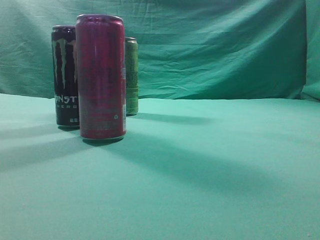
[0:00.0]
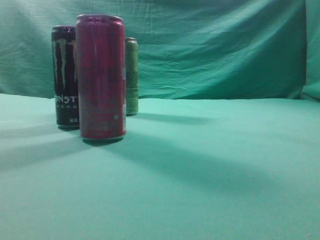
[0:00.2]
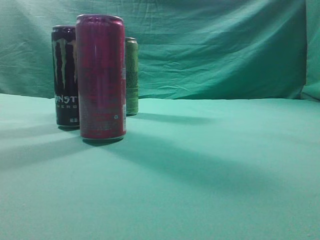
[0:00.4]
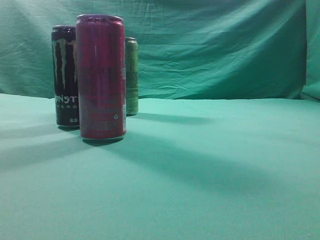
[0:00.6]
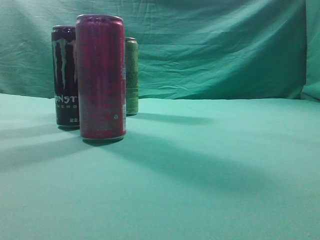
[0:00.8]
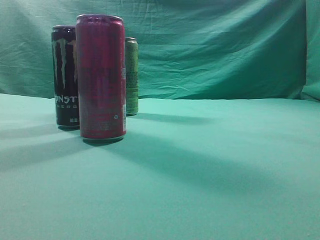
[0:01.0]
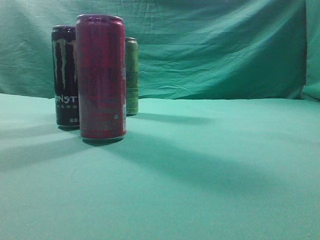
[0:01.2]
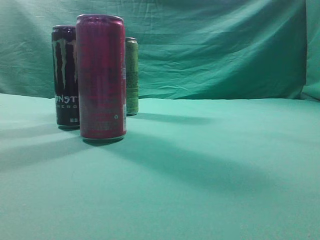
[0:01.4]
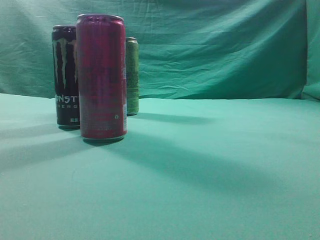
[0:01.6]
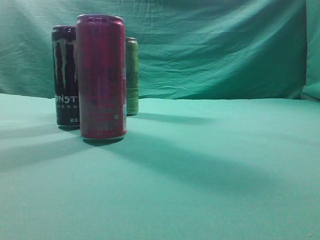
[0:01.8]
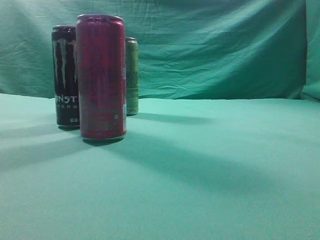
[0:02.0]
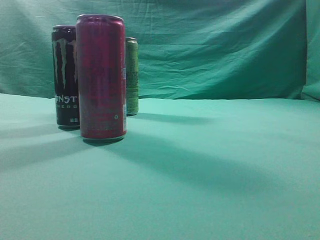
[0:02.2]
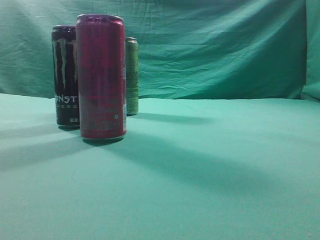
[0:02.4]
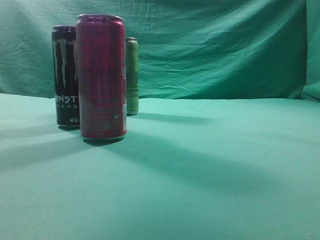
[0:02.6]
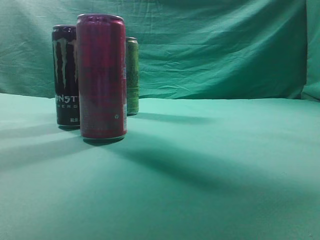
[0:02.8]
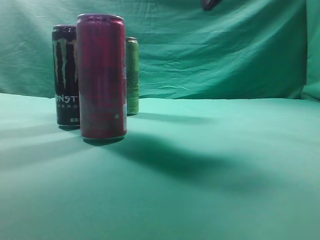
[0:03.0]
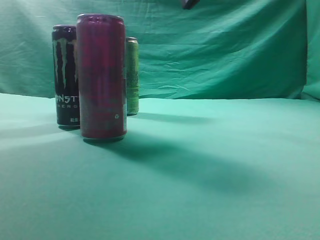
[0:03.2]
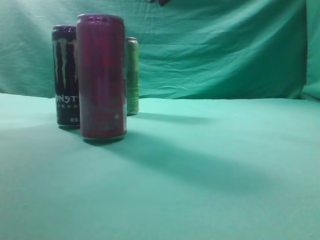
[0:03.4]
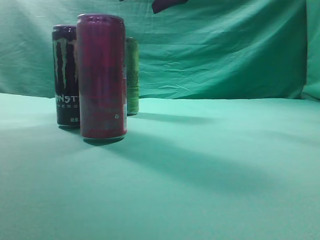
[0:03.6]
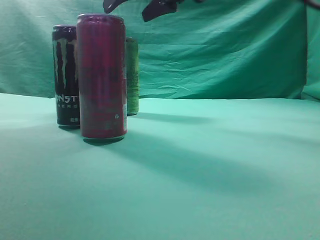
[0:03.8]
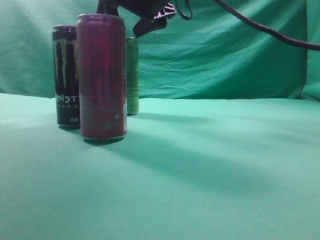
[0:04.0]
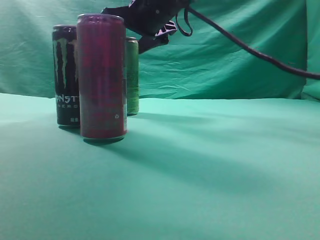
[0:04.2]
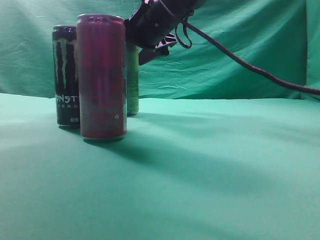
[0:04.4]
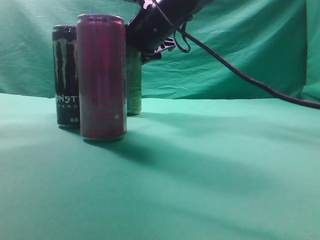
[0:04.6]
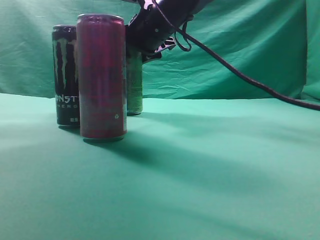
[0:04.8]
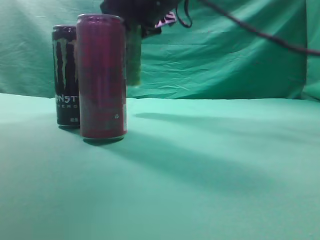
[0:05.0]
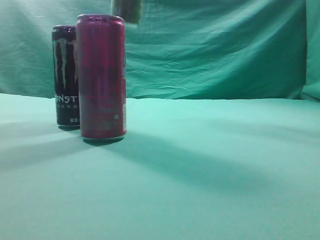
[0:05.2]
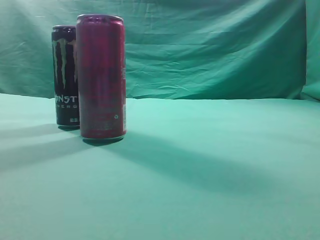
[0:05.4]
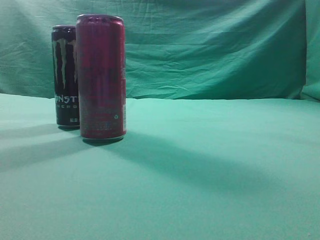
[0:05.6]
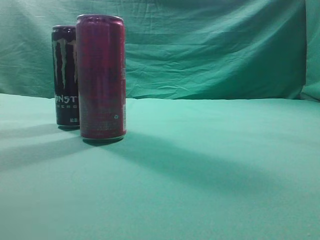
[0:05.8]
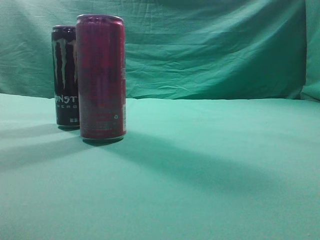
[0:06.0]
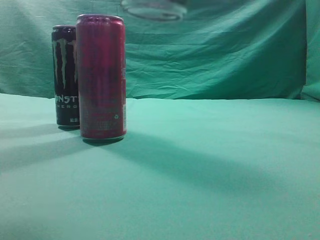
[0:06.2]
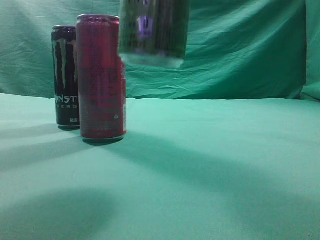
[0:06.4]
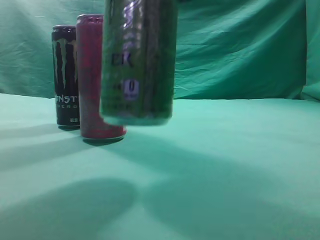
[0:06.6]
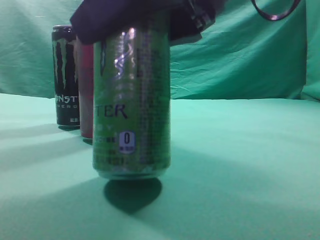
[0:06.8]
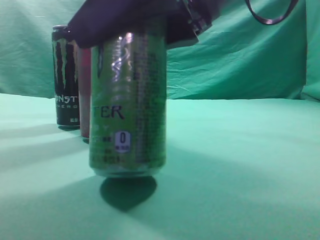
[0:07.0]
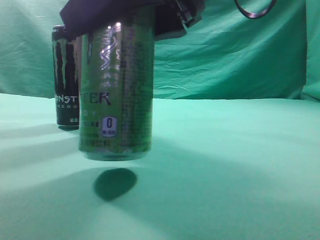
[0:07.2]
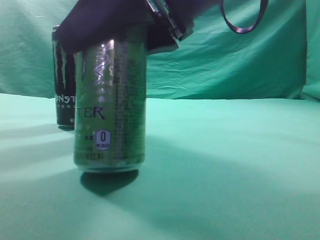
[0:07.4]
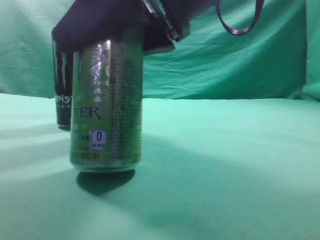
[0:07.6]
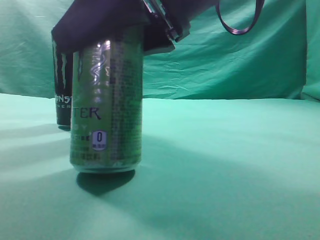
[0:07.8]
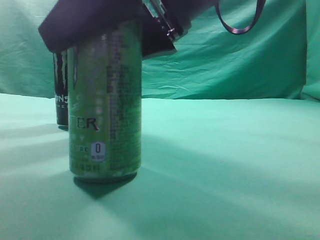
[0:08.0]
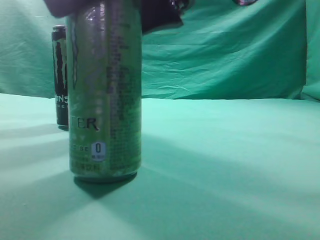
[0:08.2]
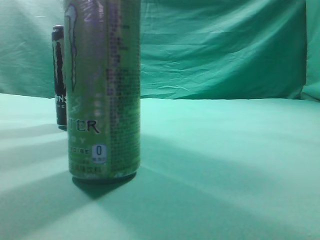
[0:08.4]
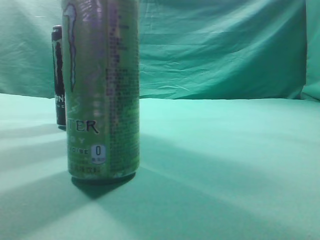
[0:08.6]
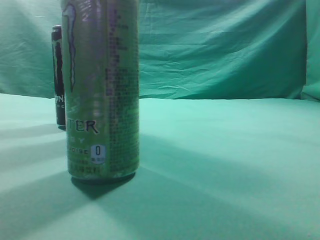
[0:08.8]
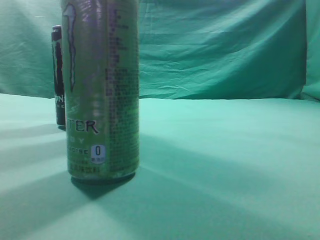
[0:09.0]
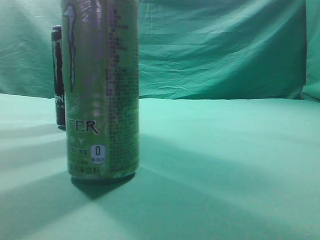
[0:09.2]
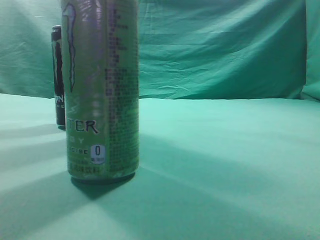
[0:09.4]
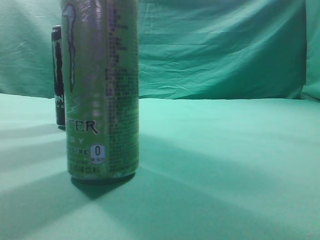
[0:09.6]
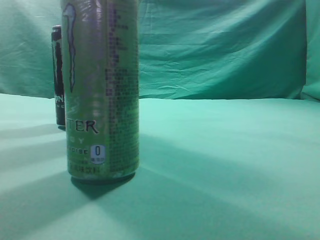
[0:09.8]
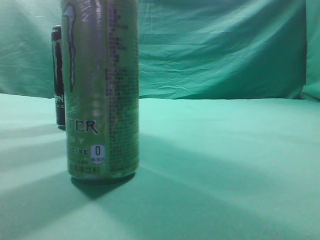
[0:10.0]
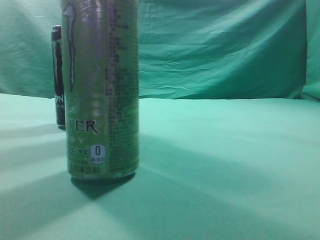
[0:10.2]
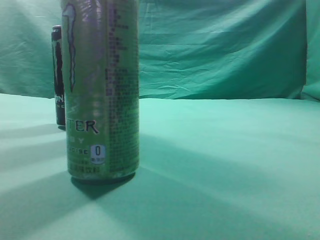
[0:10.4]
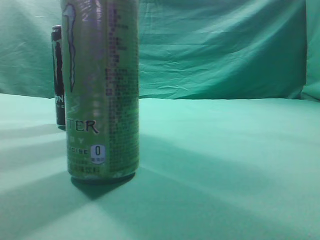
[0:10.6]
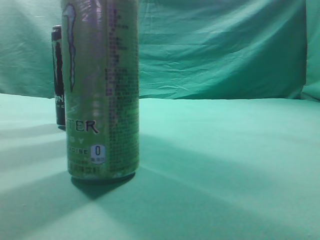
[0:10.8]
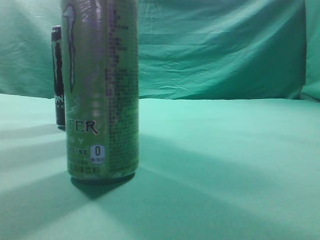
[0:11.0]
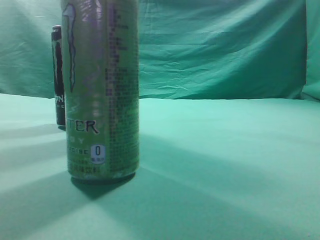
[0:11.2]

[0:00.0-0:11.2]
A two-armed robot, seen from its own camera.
Task of the whole recording: move one drink among three beverages.
Step, 0:00.0 to 0:05.0: Grasp the beverage bottle placed at the back of the desk.
Step, 0:05.2 to 0:08.6: Place the beverage bottle to the front of the table.
0:01.6 to 0:03.2: The right gripper heads forward and to the left, covering about 35 cm.
0:03.2 to 0:04.8: The right gripper travels downward, to the left and forward by some 15 cm, and opens.
0:04.8 to 0:06.4: The right gripper shifts some 25 cm backward.
0:06.4 to 0:08.0: The right gripper heads downward, covering about 5 cm.
0:08.0 to 0:09.6: The right gripper travels upward, to the right and backward by about 25 cm, and closes.
